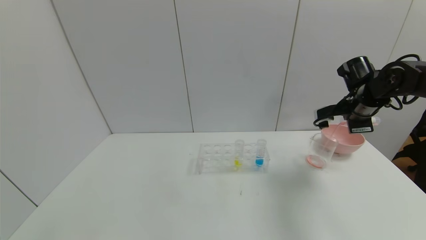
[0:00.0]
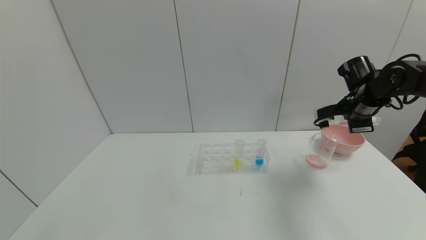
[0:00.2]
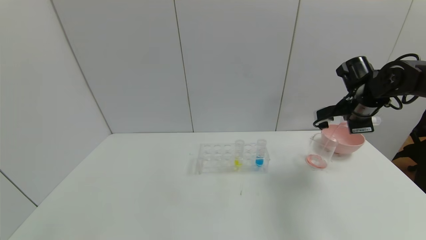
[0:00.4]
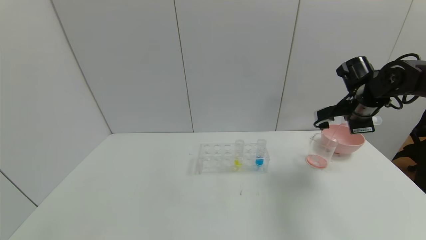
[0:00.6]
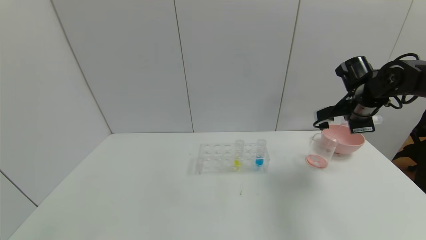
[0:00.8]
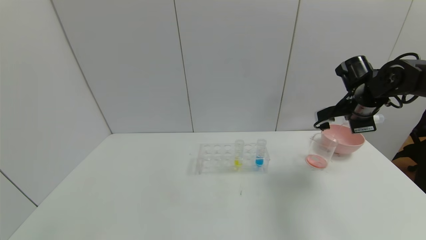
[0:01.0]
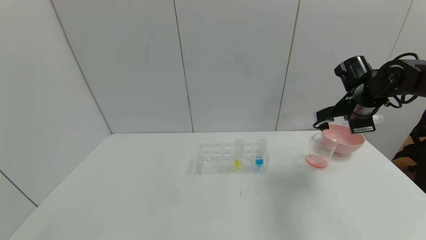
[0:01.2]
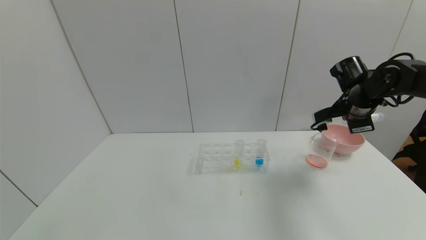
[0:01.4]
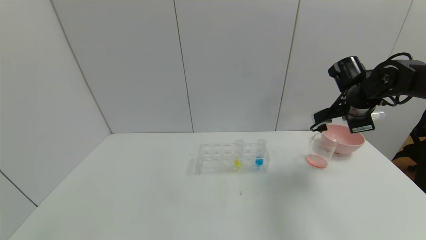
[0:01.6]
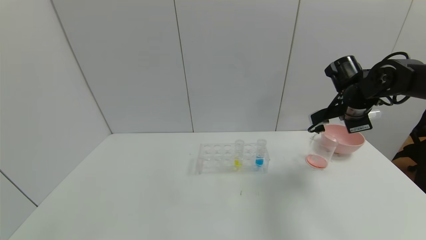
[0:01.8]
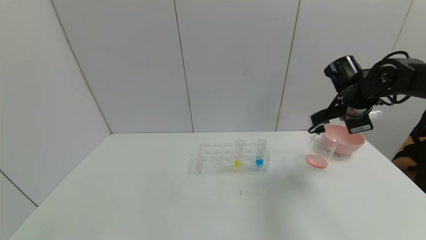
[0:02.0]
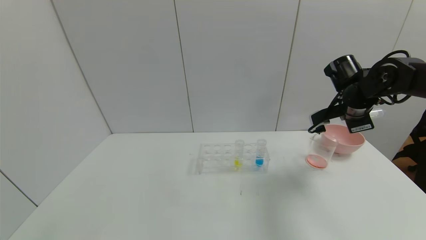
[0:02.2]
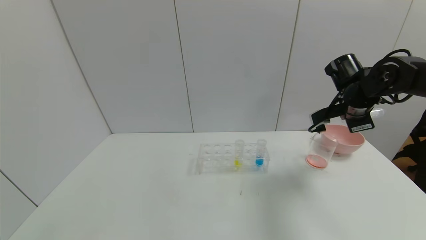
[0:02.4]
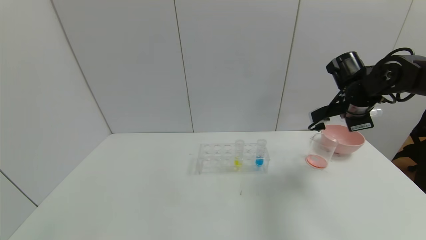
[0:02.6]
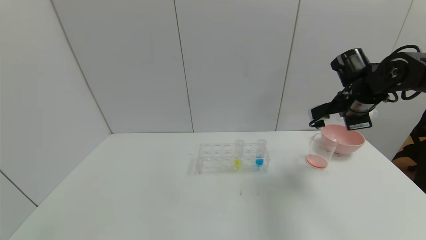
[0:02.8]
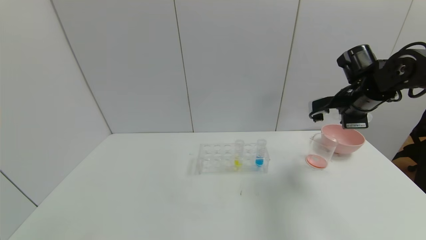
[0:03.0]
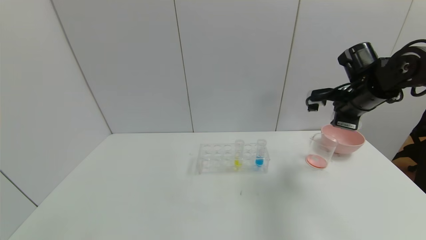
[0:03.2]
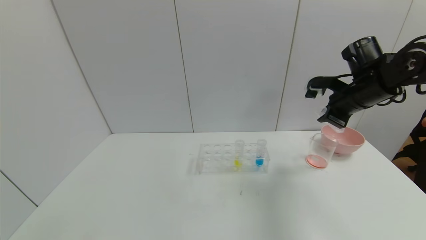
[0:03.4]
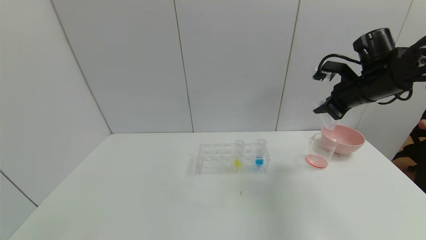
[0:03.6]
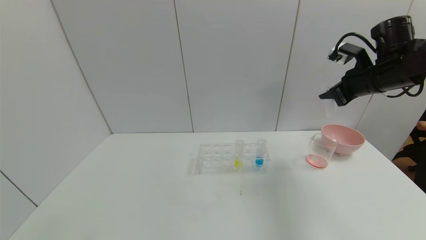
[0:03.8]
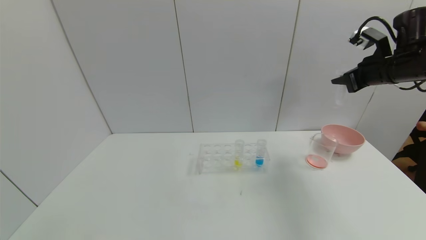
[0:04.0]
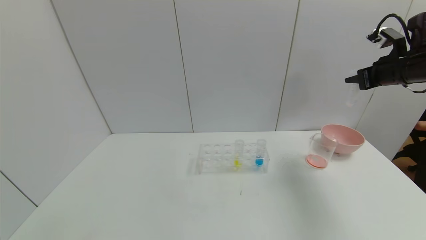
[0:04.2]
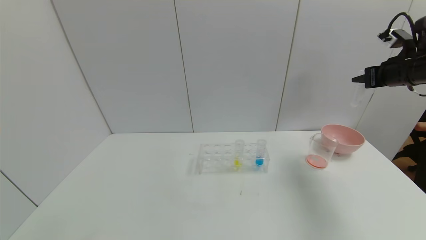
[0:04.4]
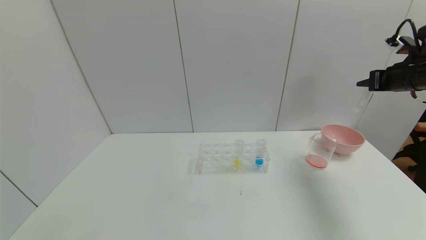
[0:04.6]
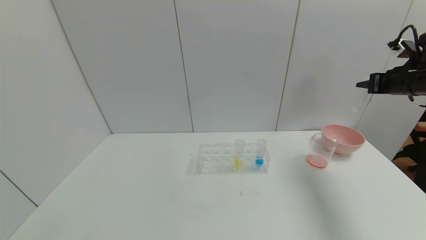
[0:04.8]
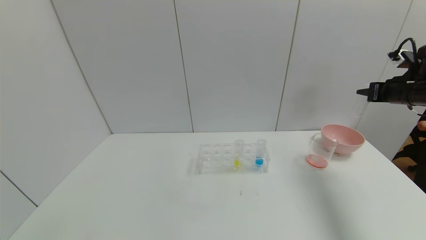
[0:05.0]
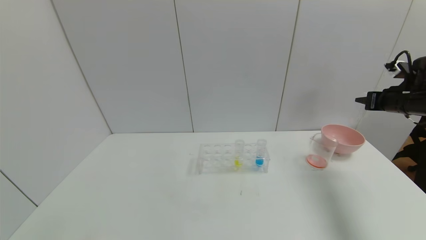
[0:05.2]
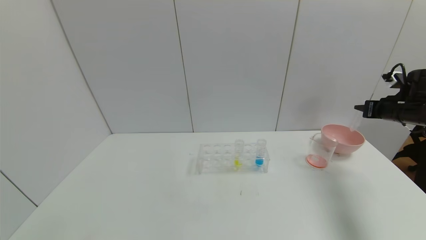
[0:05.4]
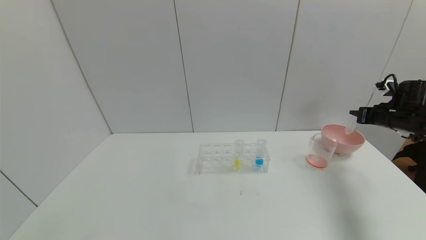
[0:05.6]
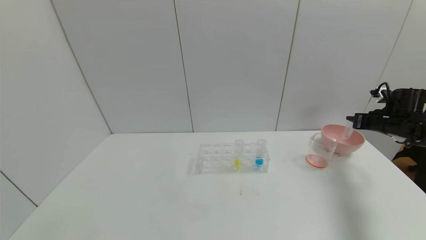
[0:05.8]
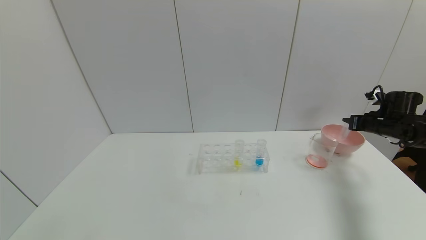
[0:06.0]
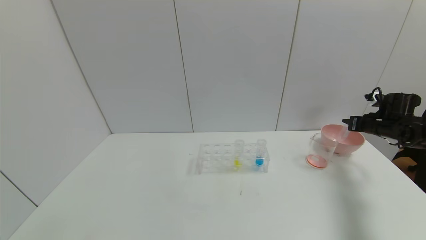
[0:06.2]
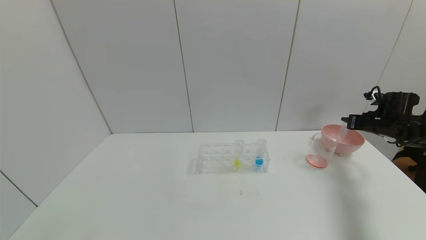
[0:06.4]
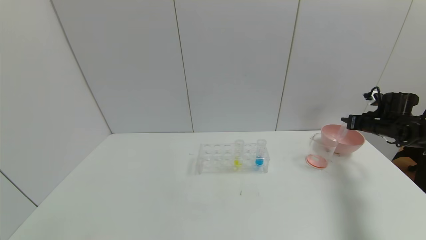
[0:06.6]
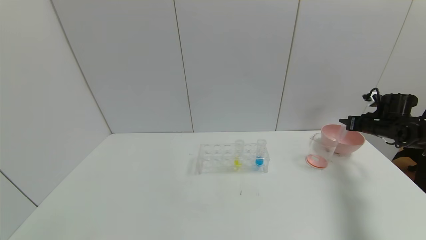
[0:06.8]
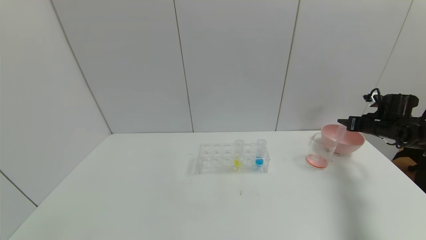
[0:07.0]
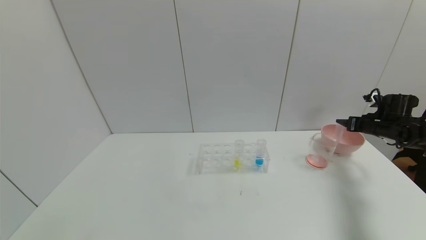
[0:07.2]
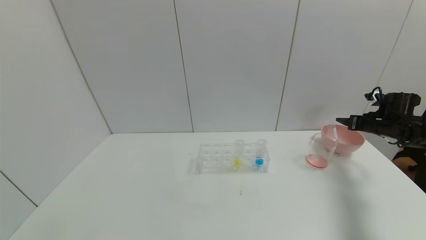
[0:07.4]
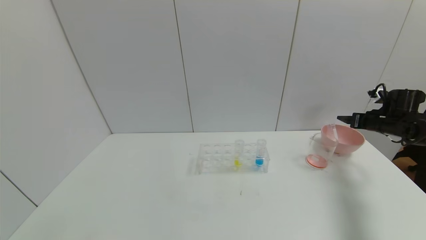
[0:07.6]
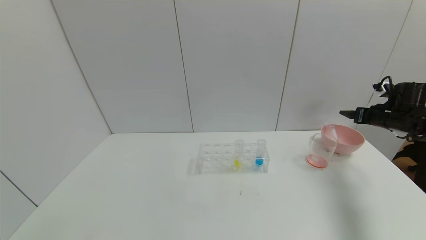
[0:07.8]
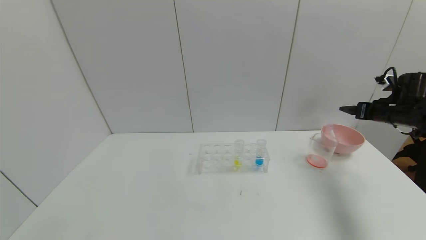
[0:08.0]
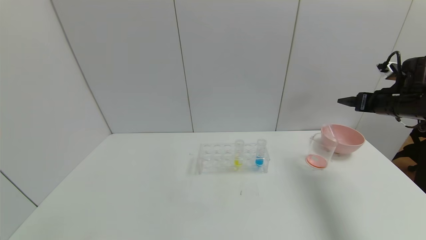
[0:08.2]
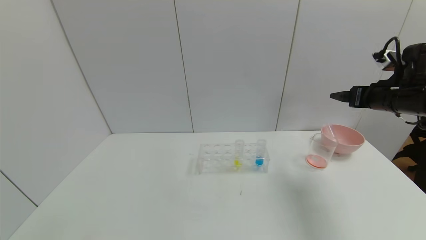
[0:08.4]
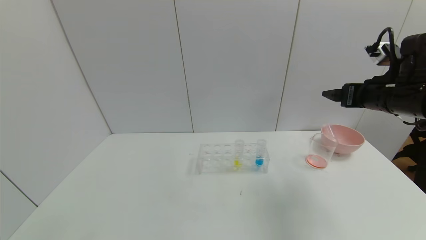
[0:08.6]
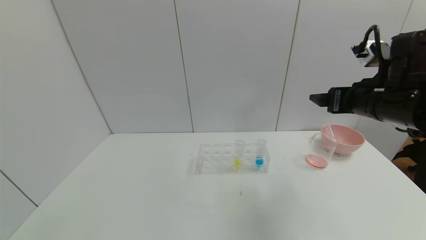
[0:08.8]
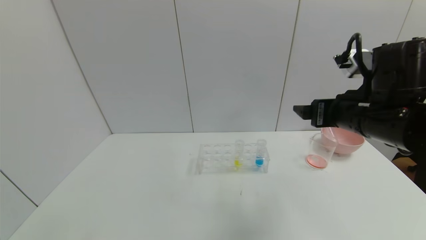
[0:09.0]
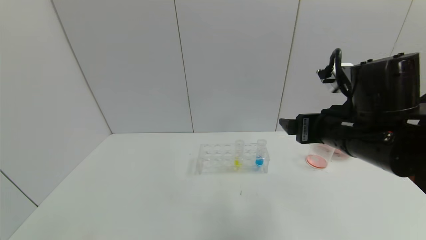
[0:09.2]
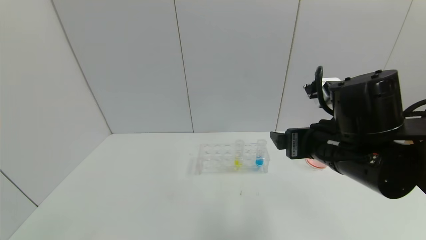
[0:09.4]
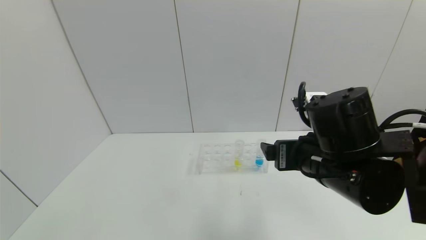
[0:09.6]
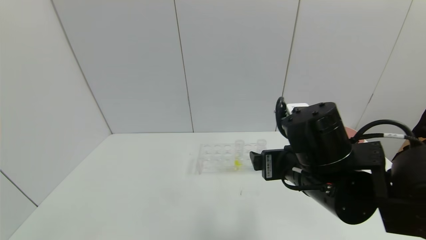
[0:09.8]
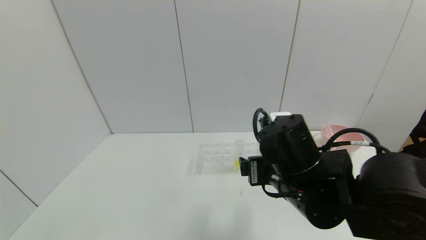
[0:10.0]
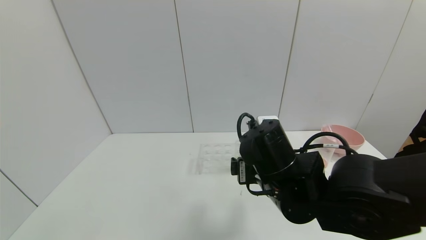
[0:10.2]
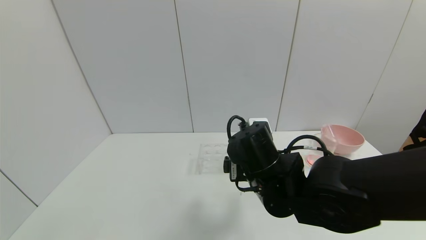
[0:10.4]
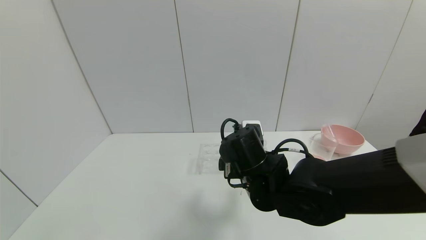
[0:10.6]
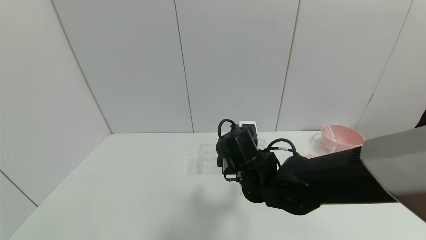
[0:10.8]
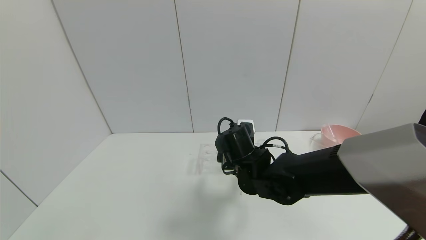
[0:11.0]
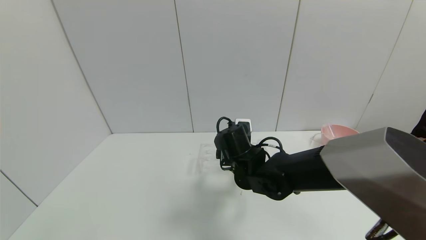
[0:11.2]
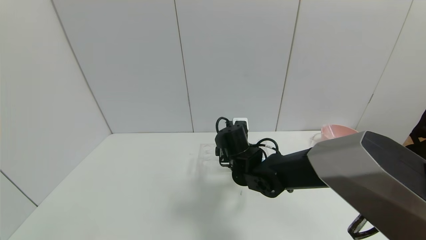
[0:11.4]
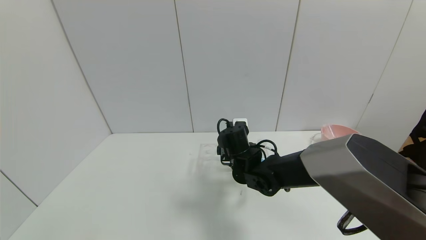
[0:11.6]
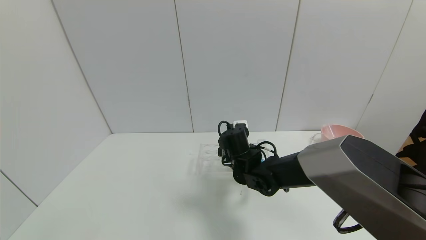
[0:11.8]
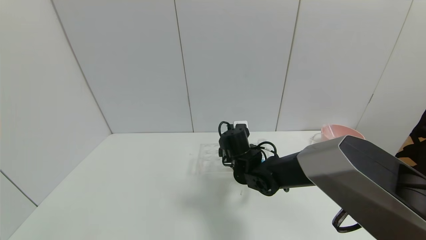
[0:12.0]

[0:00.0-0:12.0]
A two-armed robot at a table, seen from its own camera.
Task of the whole recording: pick up the test tube with yellow pigment and the test tube with red pigment by grippers and pour them into the beaker.
Step, 0:01.8 to 0:07.0: Place the test tube into the bowl with the right gripper.
0:00.0 to 0:03.0: The grippers move only a little.
0:03.0 to 0:04.4: The right gripper heads to the right and upward, covering about 10 cm.
0:04.4 to 0:06.0: The right gripper moves downward, some 15 cm.
0:06.0 to 0:07.6: The right gripper opens.
0:07.6 to 0:09.0: The right gripper goes some 35 cm to the left, backward and upward.
0:09.0 to 0:10.4: The right gripper heads to the left and downward, covering roughly 20 cm.
0:10.4 to 0:12.0: The right gripper is displaced forward and downward by approximately 15 cm.

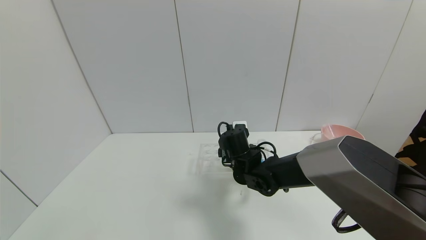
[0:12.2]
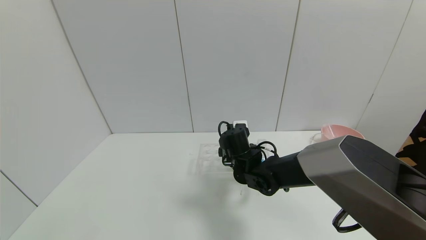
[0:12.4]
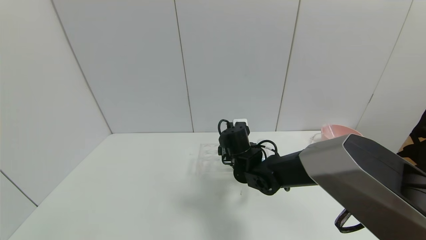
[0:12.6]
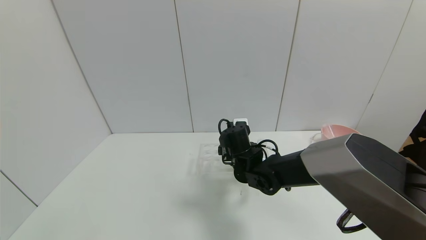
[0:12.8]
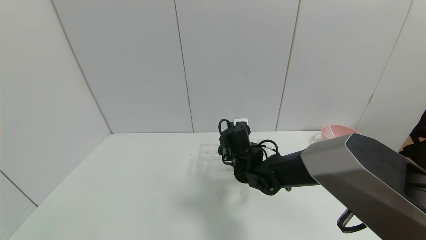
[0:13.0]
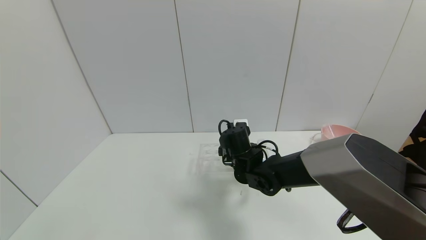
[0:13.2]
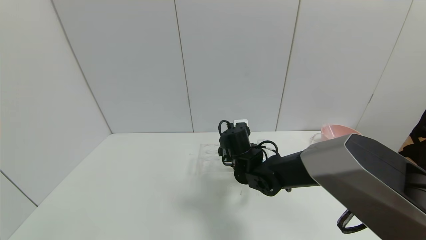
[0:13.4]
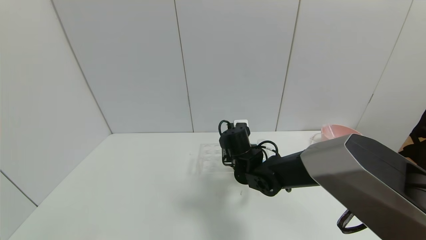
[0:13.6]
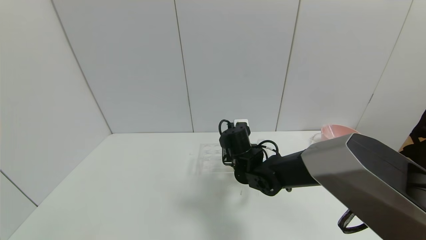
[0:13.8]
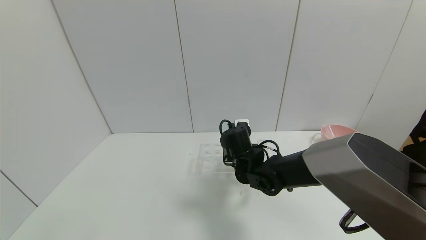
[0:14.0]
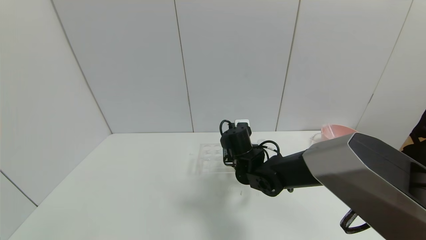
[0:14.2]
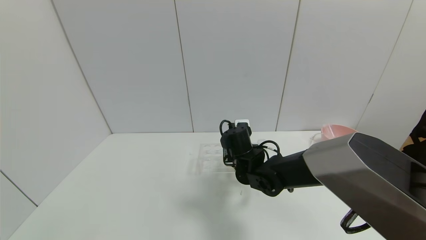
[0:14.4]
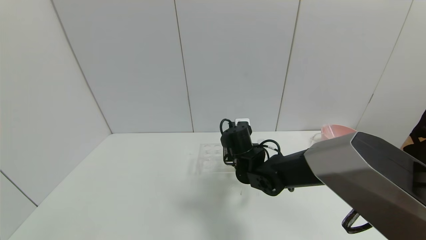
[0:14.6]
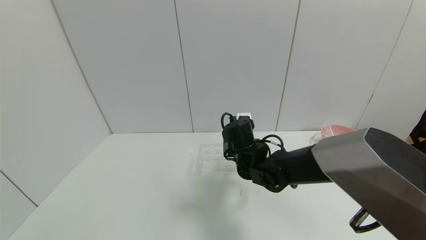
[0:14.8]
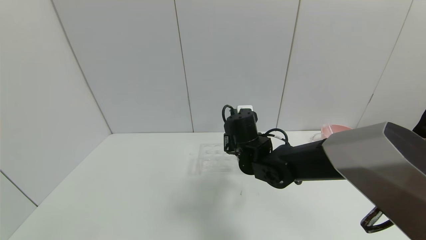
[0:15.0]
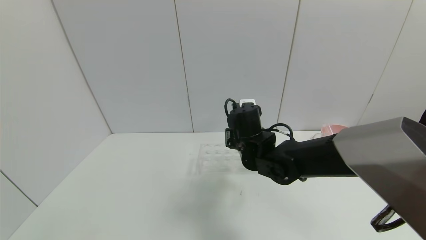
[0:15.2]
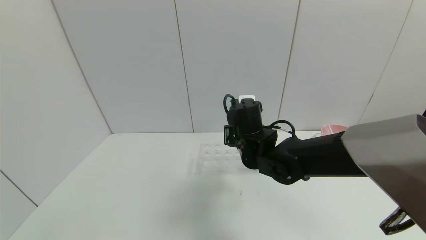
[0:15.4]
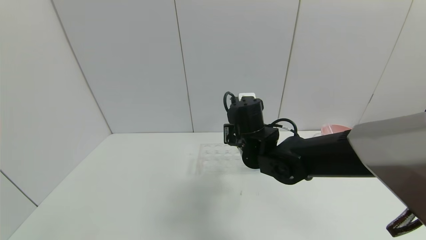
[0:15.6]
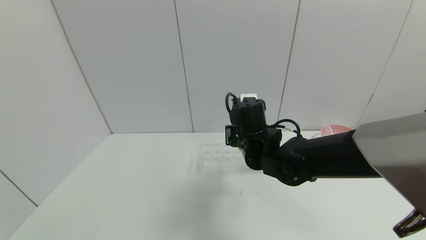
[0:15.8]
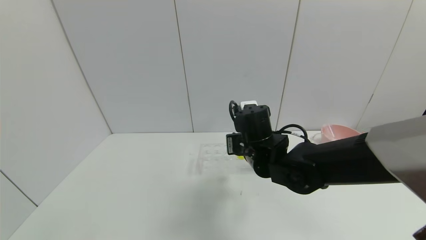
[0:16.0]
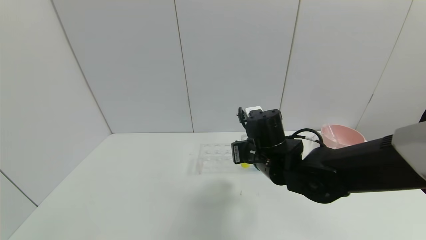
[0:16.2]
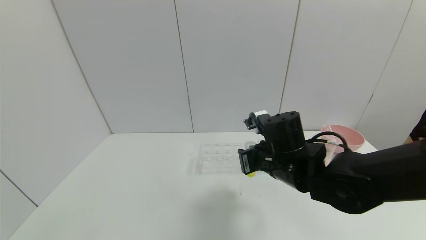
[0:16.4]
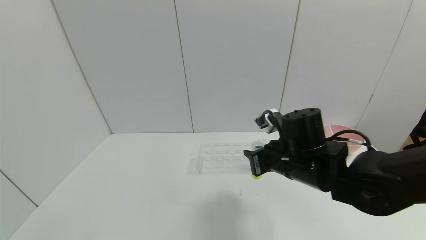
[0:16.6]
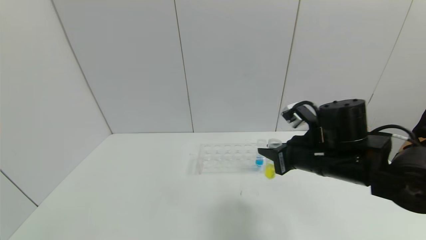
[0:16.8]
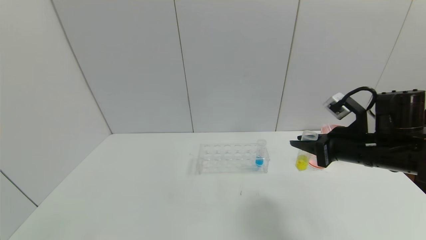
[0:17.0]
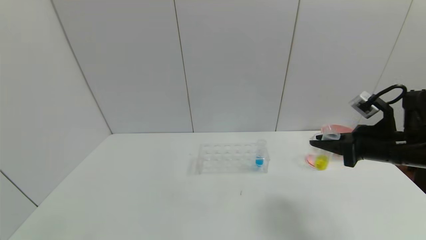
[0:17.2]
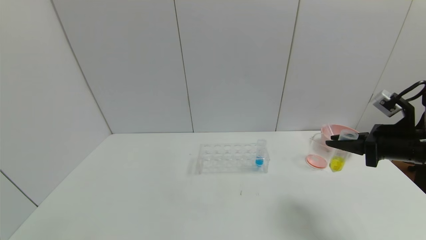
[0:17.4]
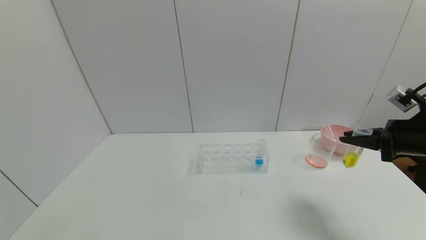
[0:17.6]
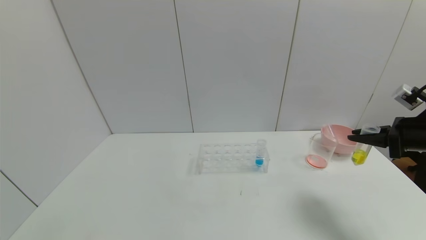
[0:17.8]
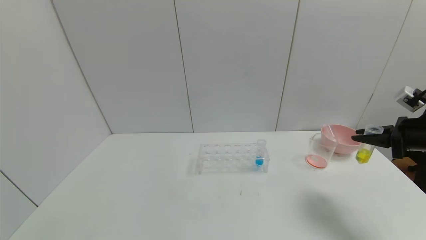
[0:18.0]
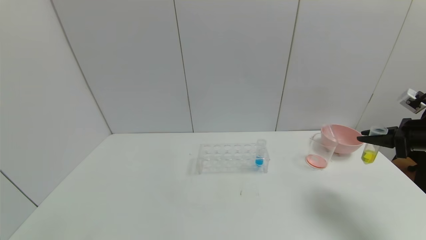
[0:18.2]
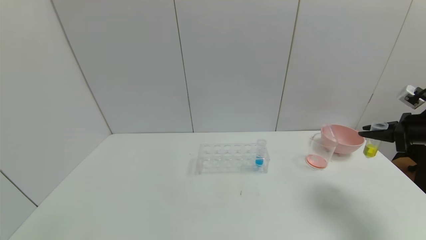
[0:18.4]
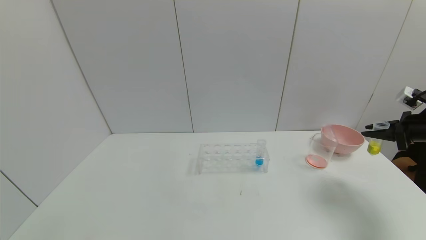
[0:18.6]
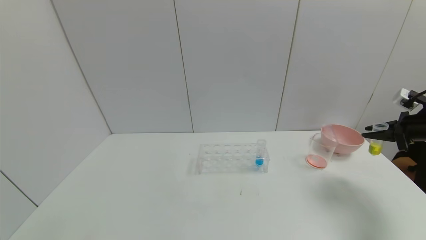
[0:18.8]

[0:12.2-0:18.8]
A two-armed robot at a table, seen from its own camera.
Task of the whole recording: pick up the test tube with yellow pigment and the test tube with red pigment by grippers and pour them into the beaker.
Step, 0:12.2 to 0:14.2: Grasp the yellow reagent with the right gripper.
0:12.2 to 0:13.8: The right gripper closes up.
0:13.8 to 0:15.4: The right gripper is displaced upward by roughly 5 cm.
0:15.4 to 0:17.2: The right gripper moves to the right, about 25 cm.
0:17.2 to 0:18.8: The right gripper moves to the right, about 20 cm.
